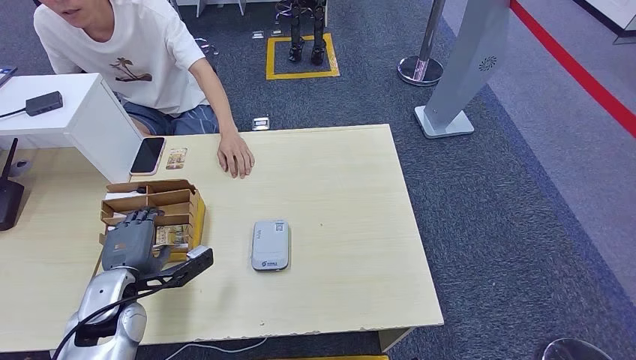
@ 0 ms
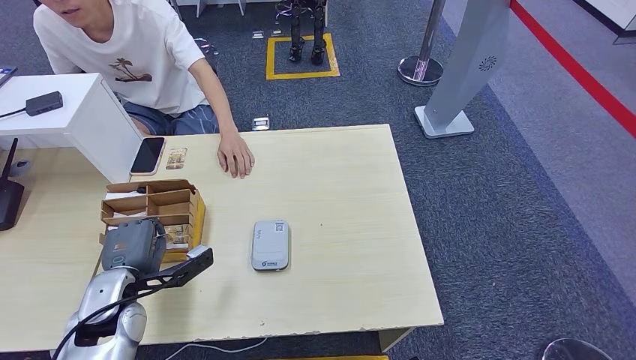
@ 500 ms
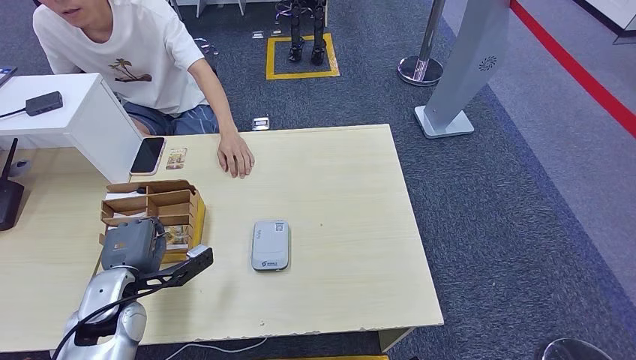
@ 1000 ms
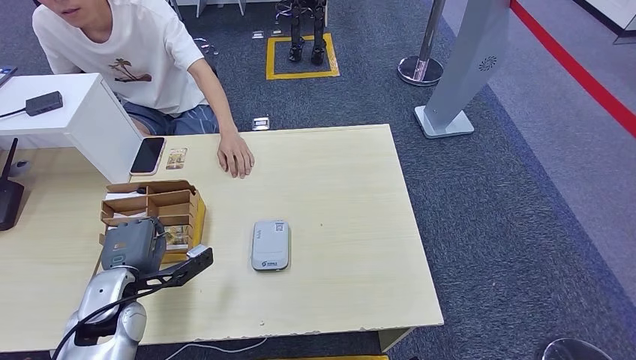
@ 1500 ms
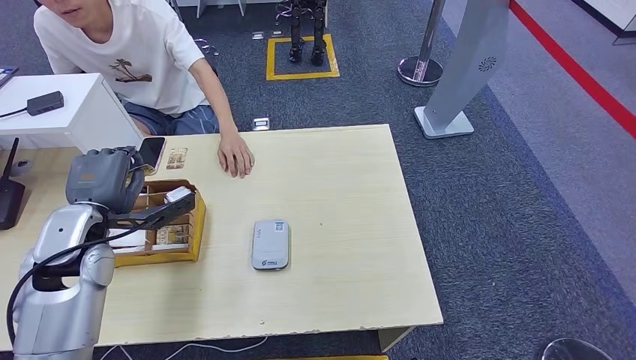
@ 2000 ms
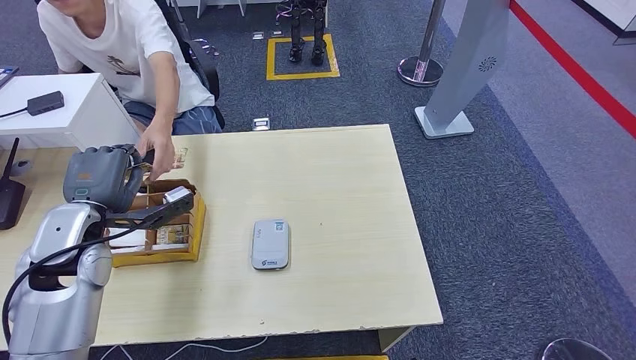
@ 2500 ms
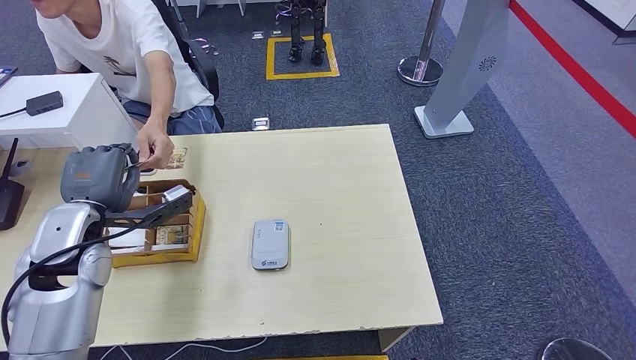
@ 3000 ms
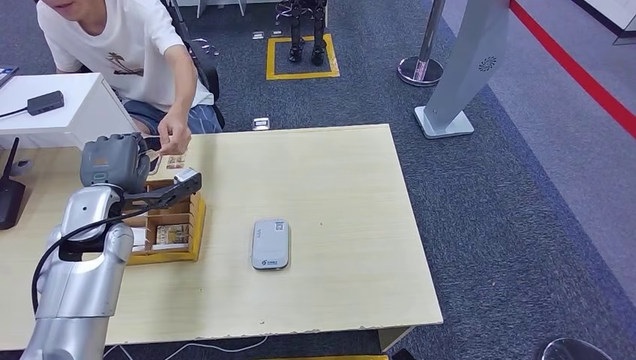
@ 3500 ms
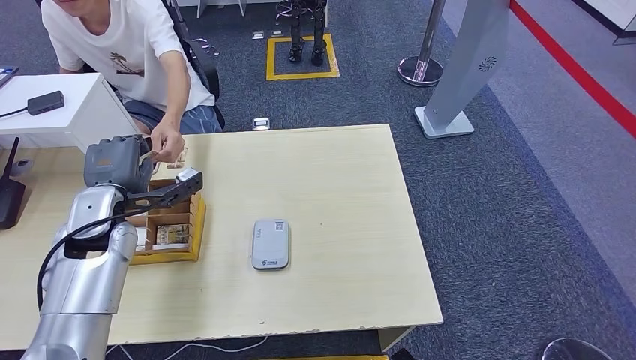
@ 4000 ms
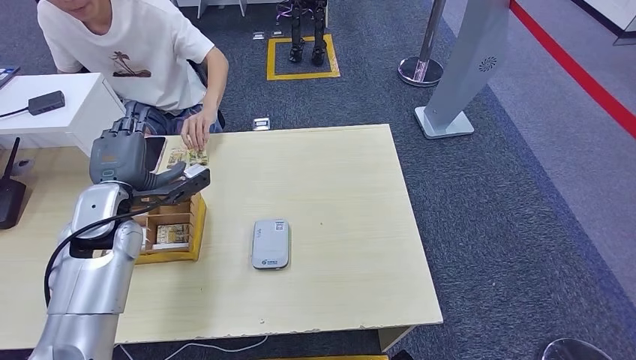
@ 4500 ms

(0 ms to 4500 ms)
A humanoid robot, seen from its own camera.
Step, 0 ms - 2000 ms: Pick up the room key from the key card box.
Step, 2500 ms - 4500 ms: Hand the room key to the person.
0 ms - 2000 ms: The left hand is displaced upward and forward by roughly 10 cm.
2000 ms - 4500 ms: The left hand moves about 5 cm.

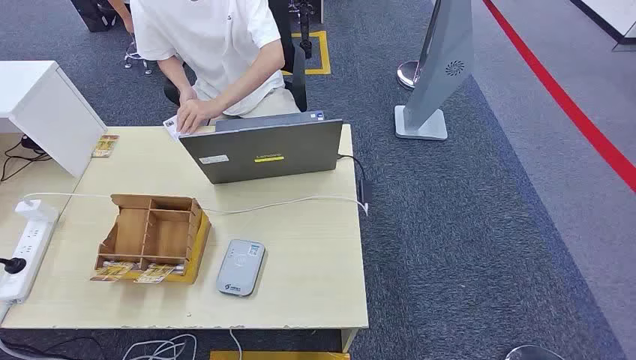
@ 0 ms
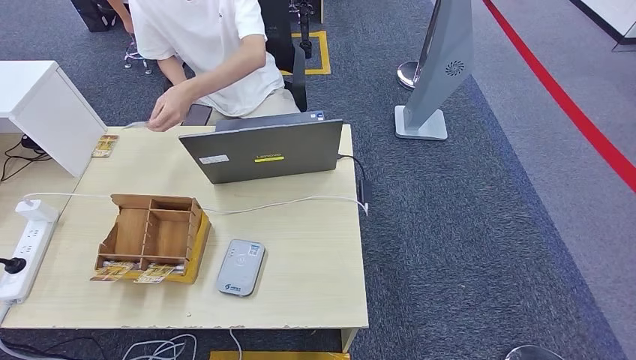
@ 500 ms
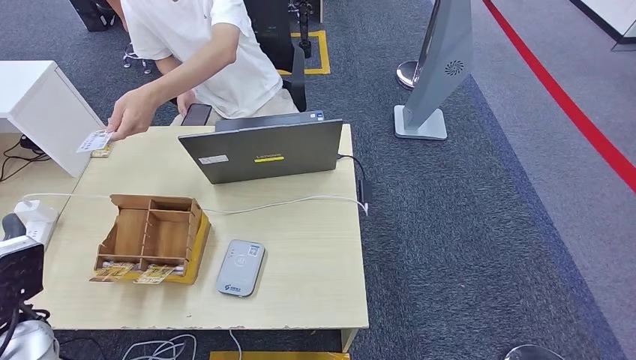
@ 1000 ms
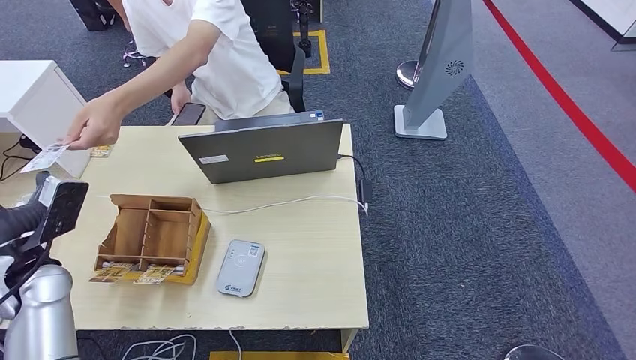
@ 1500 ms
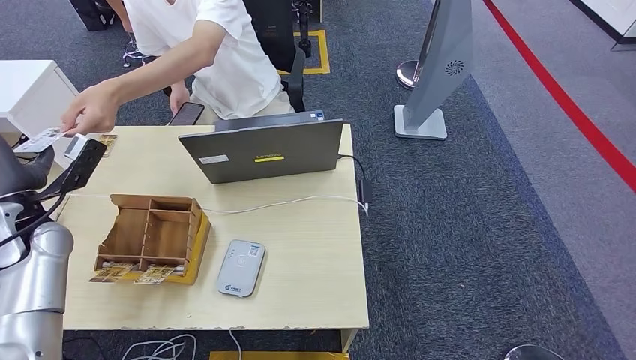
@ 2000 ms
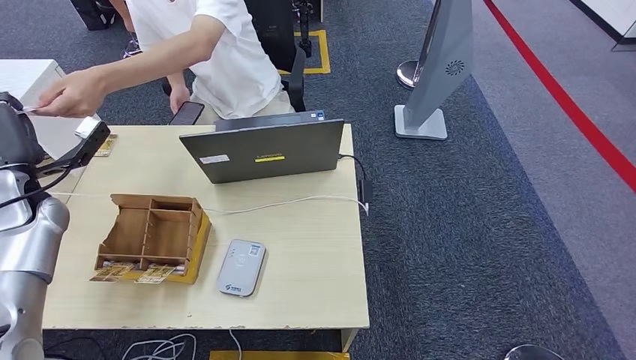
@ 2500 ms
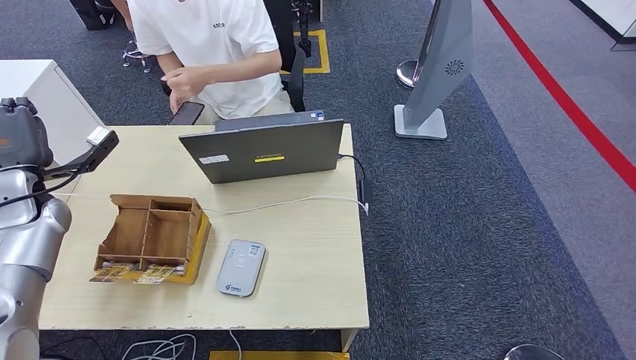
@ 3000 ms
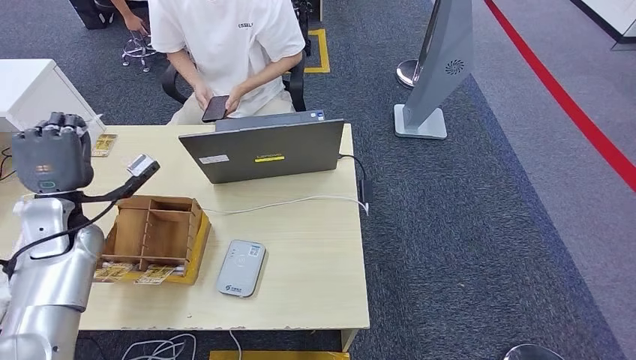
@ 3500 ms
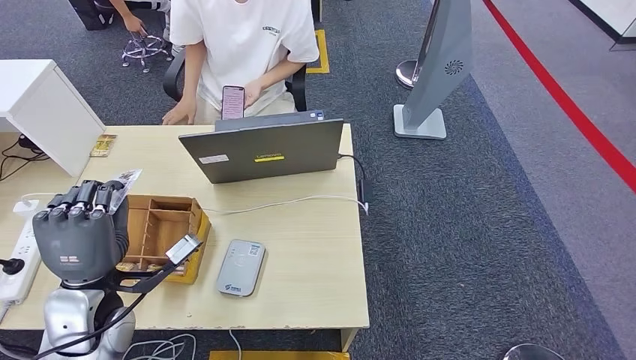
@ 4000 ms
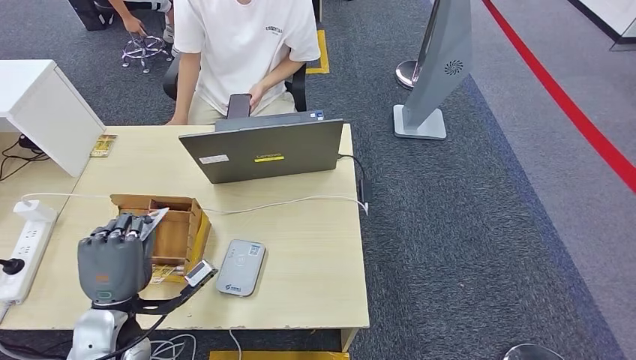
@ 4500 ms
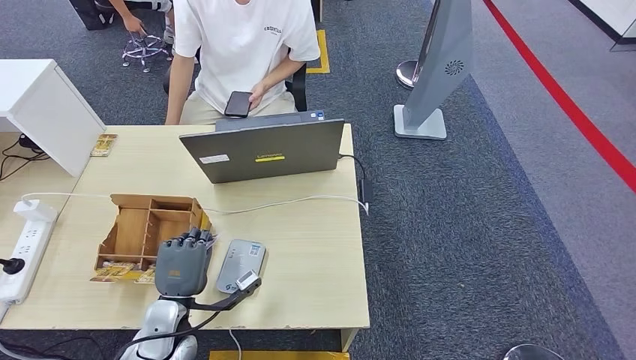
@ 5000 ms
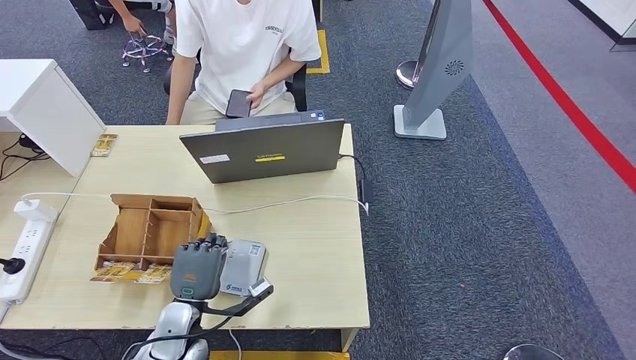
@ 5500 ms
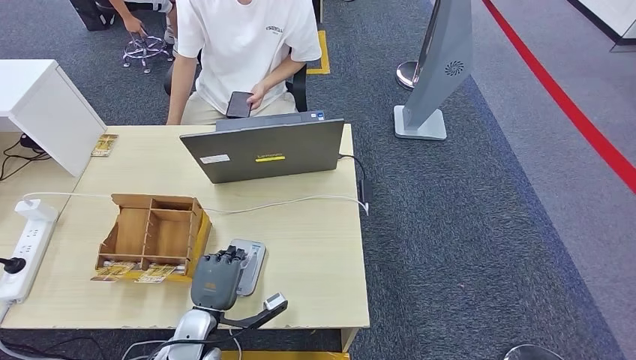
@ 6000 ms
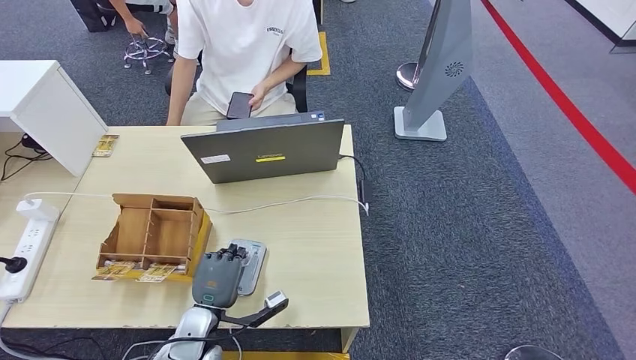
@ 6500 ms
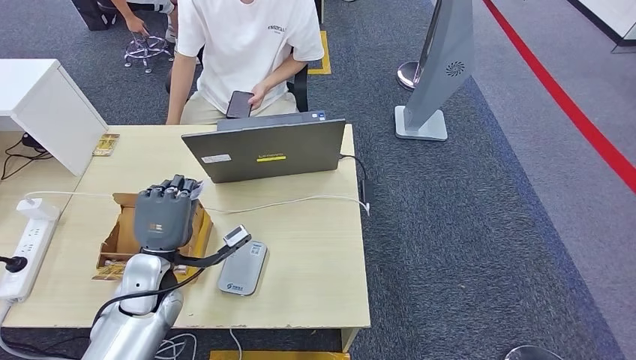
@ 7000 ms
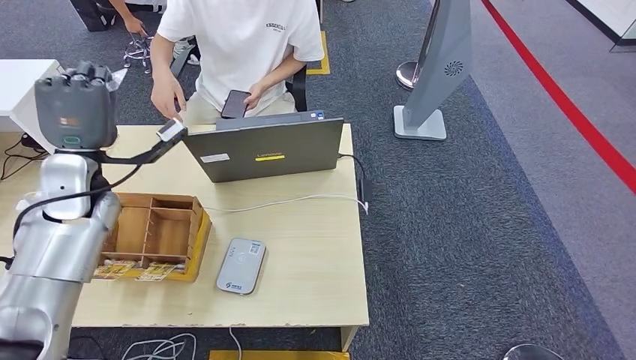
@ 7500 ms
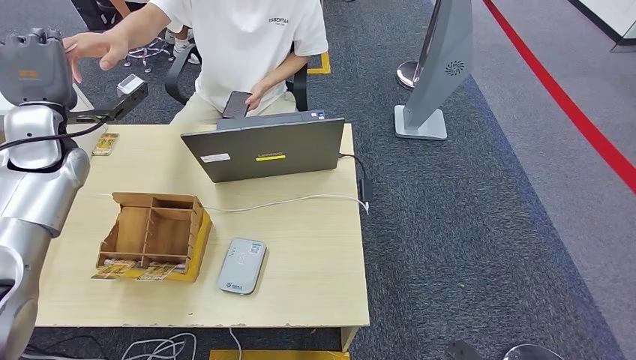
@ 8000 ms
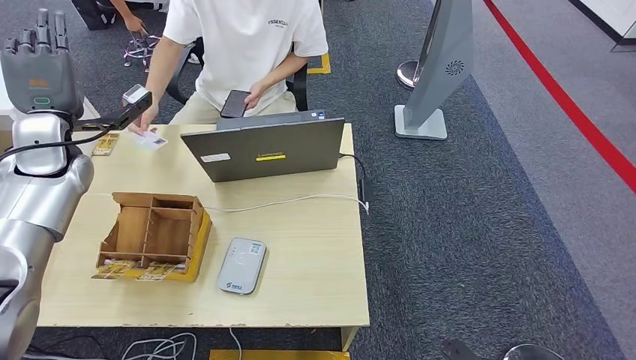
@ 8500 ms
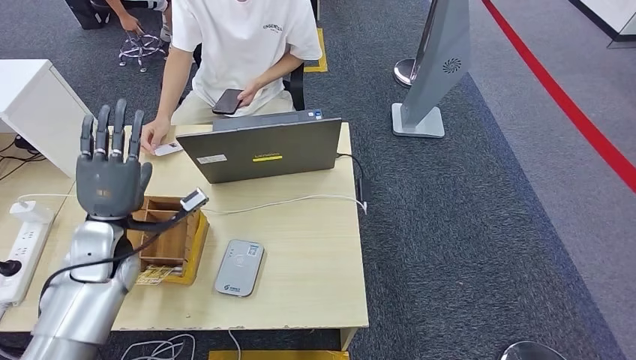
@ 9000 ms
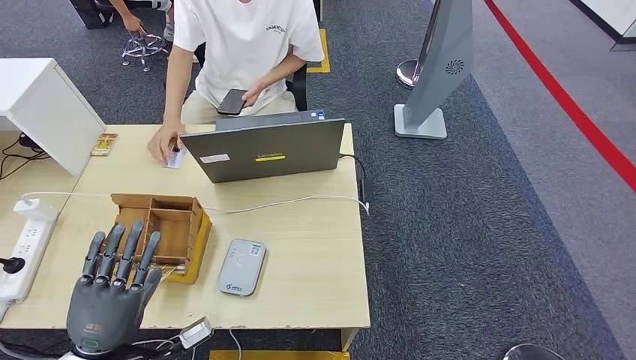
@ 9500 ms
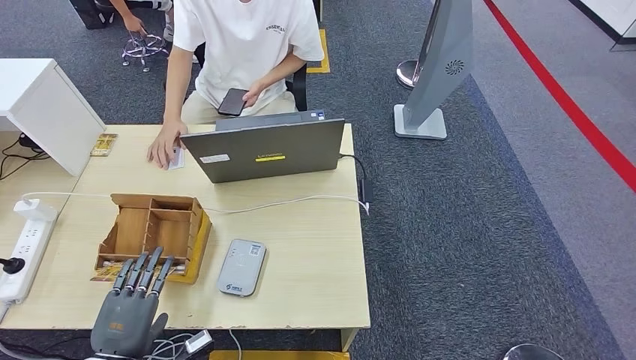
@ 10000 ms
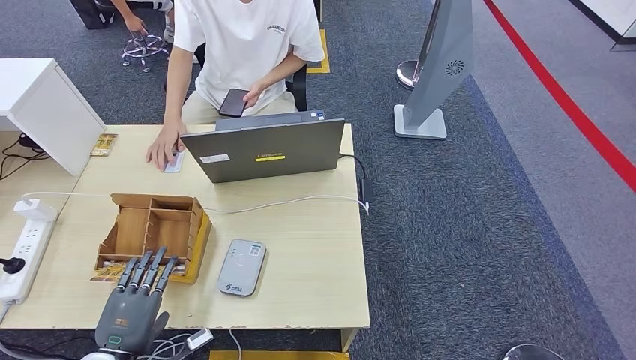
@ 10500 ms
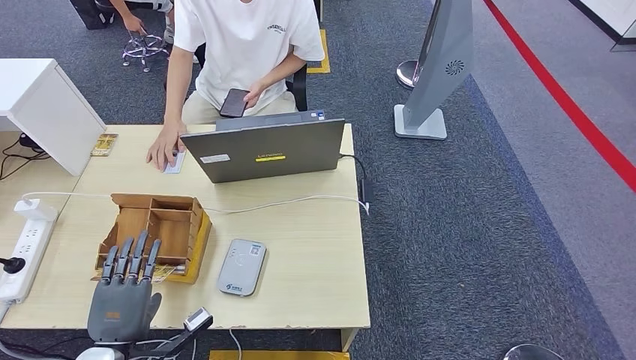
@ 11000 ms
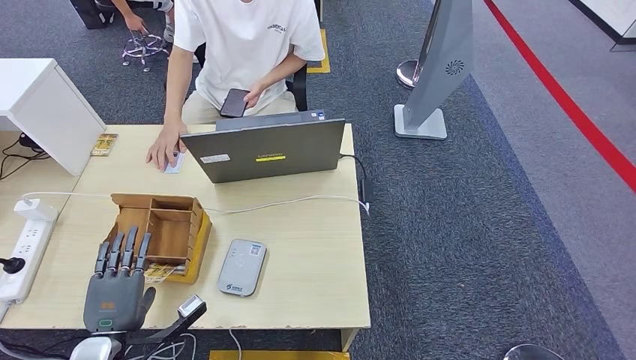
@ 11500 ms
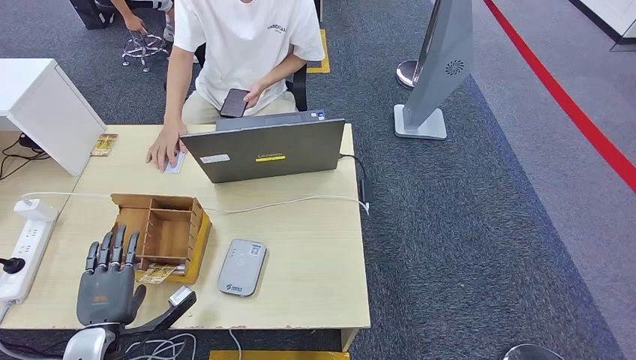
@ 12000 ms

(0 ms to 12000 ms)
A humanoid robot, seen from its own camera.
Step, 0 ms - 3000 ms: Take the ID card from the person's hand.
Step, 3500 ms - 6500 ms: Place the ID card on the card reader.
Step, 7000 ms - 9000 ms: Hand the ID card to the person.
2000 ms - 4000 ms: The left hand travels to the right and backward by approximately 15 cm.
4000 ms - 6000 ms: The left hand goes about 20 cm downward and to the right.
6000 ms - 8000 ms: The right hand travels forward by about 5 cm; the left hand travels upward, forward and to the left by about 40 cm.
8000 ms - 10000 ms: The left hand moves backward and downward, roughly 40 cm; the right hand is displaced backward by approximately 10 cm.
10000 ms - 12000 ms: The left hand moves forward, some 5 cm.

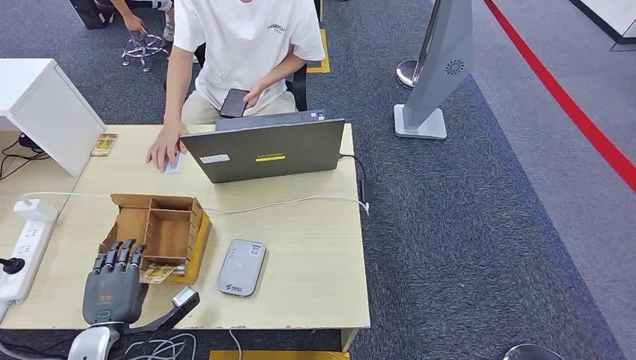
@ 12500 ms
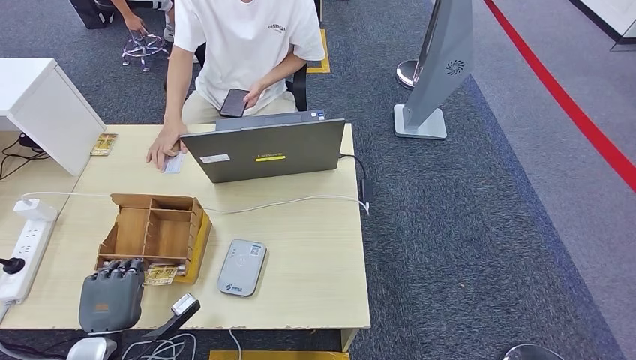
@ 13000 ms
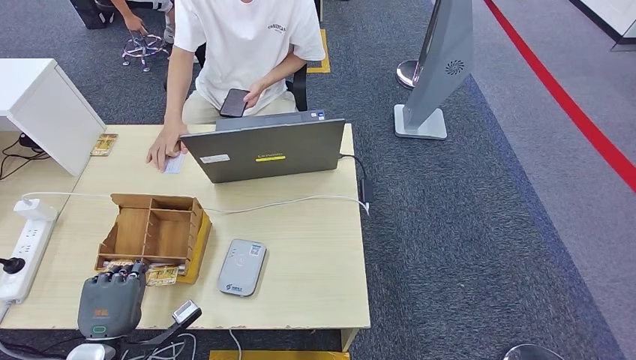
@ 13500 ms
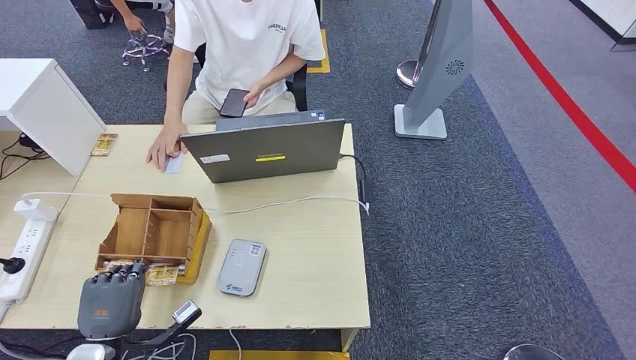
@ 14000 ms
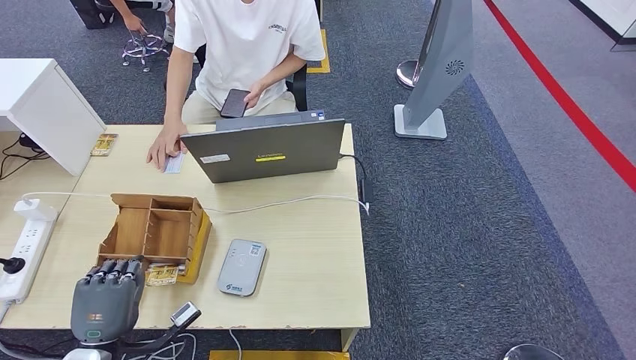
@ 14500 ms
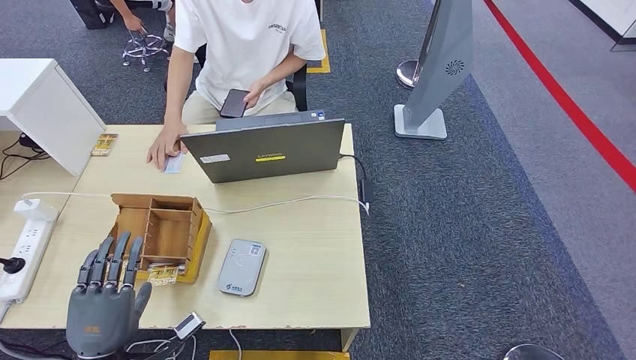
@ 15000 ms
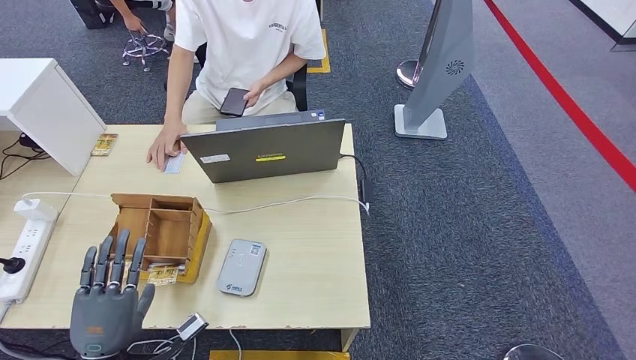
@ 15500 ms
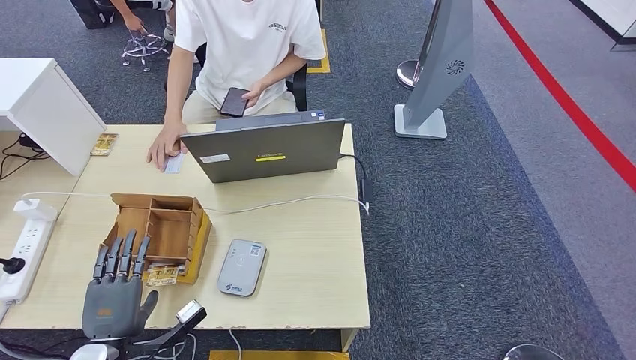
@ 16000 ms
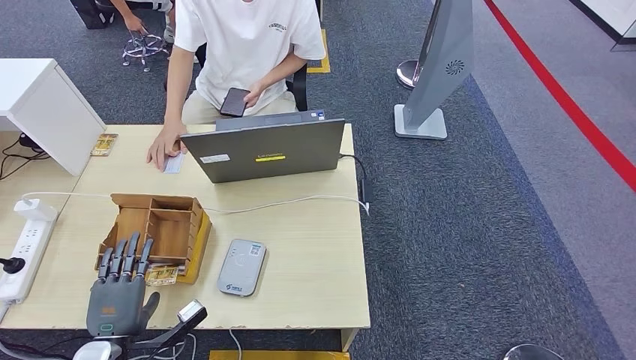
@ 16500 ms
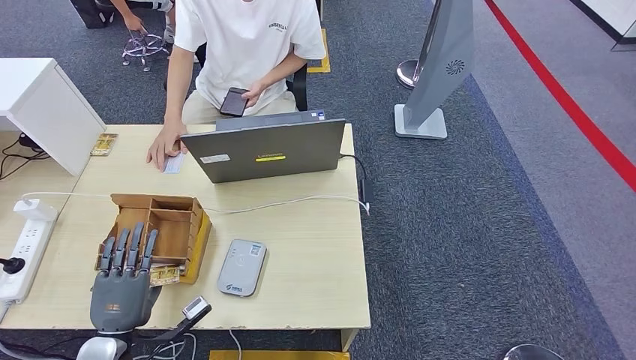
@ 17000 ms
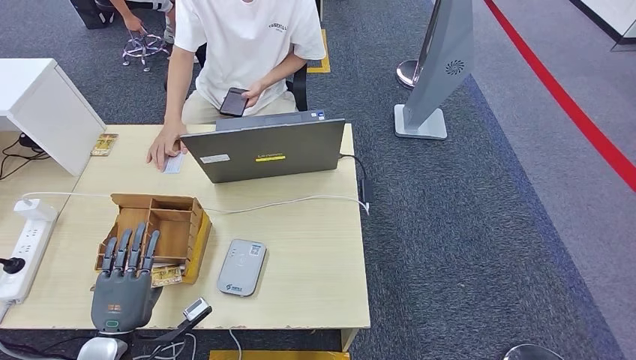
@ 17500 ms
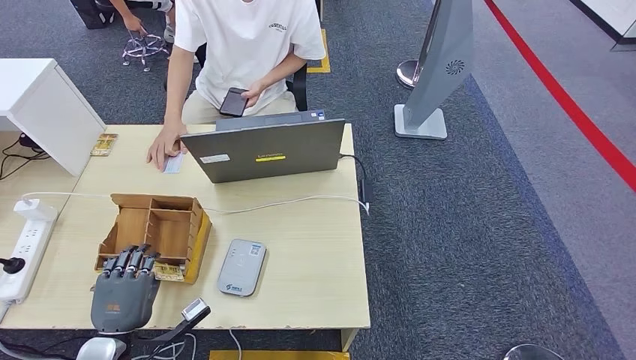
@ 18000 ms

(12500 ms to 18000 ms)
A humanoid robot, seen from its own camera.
12500 ms - 14500 ms: The hands stay close to where they were, moving slightly.
14500 ms - 18000 ms: There are only small adjustments of the hands.
